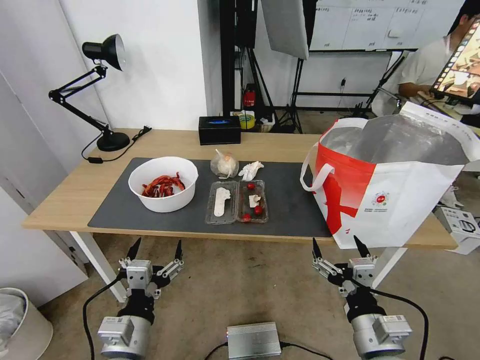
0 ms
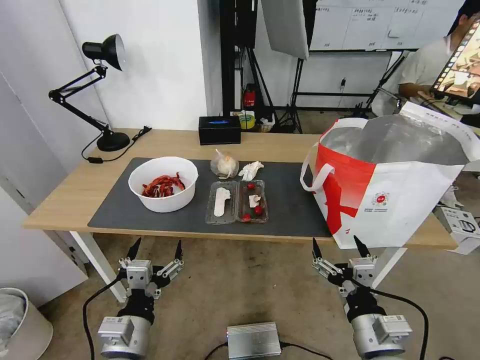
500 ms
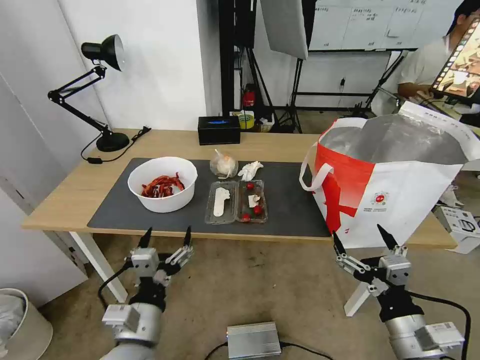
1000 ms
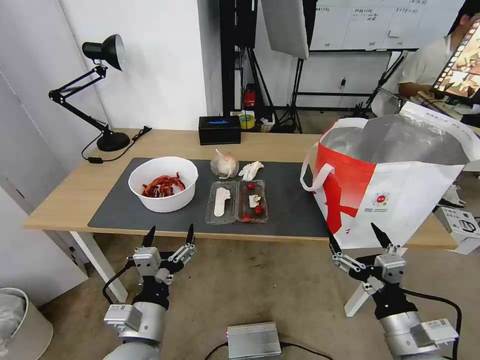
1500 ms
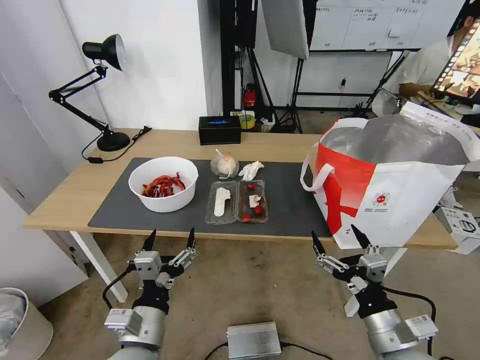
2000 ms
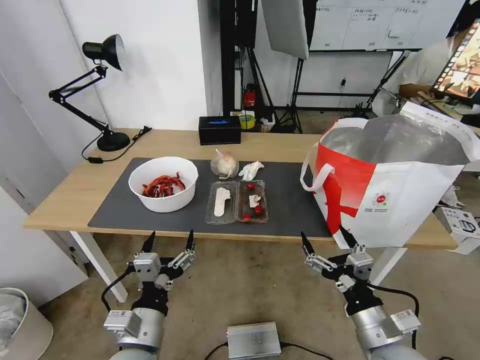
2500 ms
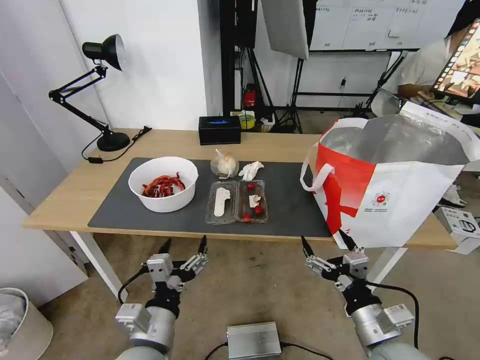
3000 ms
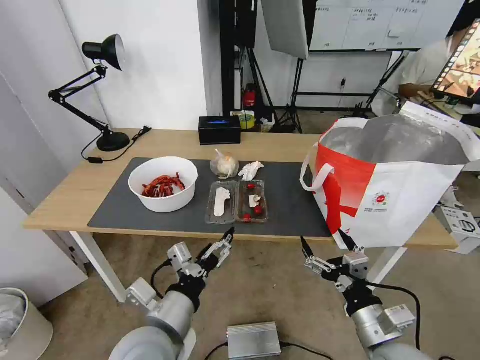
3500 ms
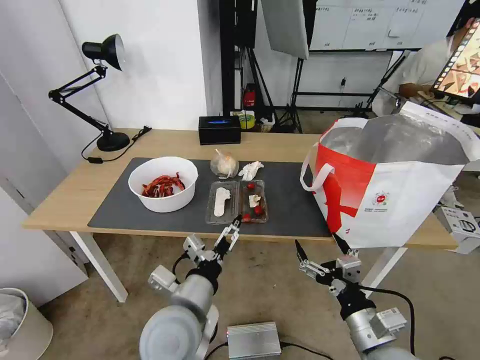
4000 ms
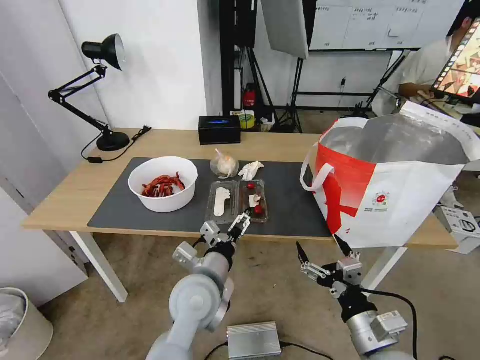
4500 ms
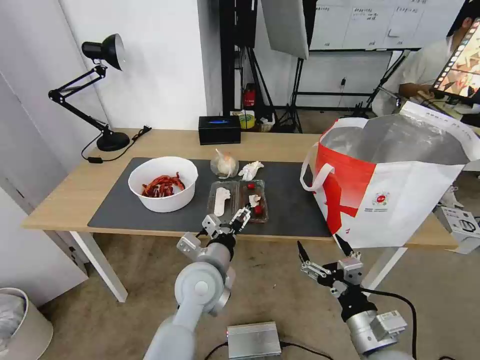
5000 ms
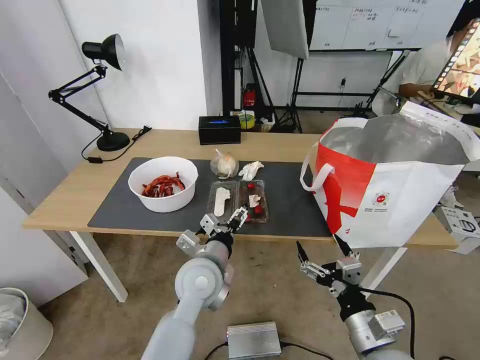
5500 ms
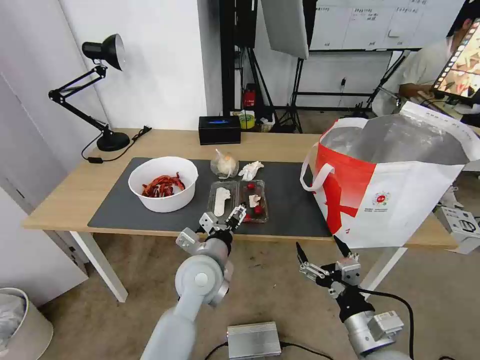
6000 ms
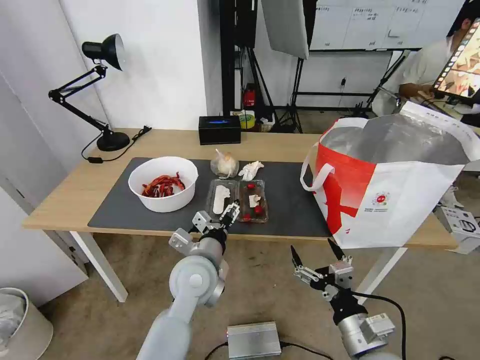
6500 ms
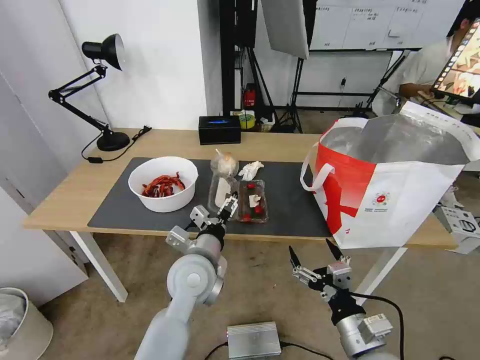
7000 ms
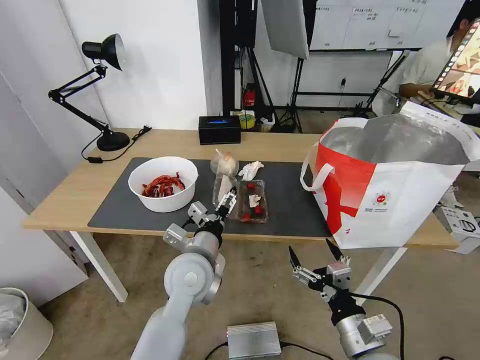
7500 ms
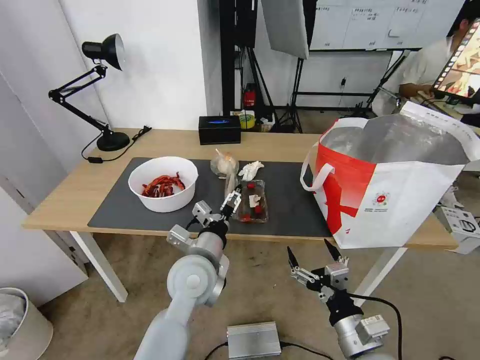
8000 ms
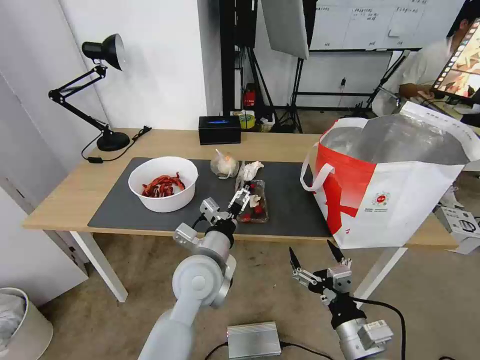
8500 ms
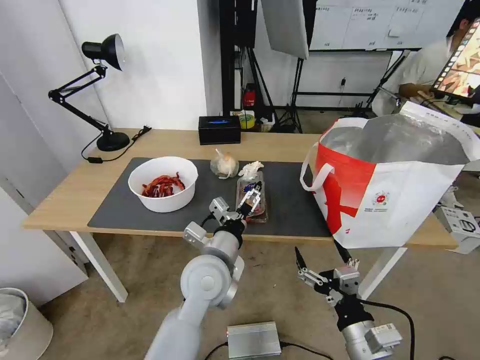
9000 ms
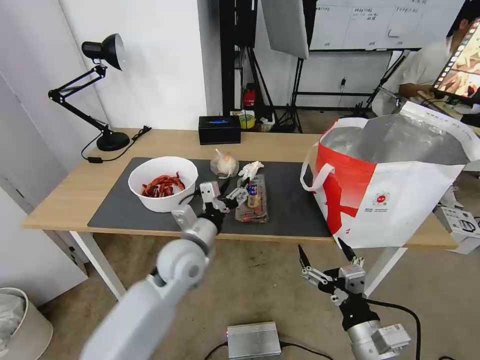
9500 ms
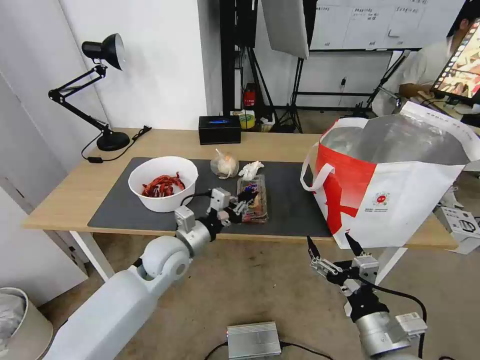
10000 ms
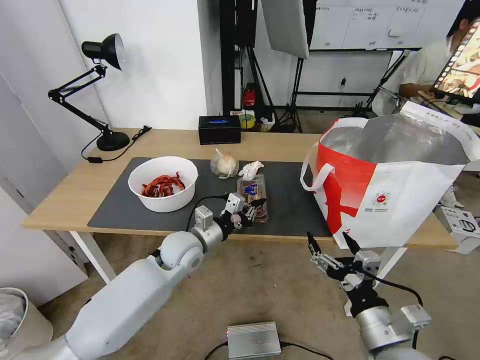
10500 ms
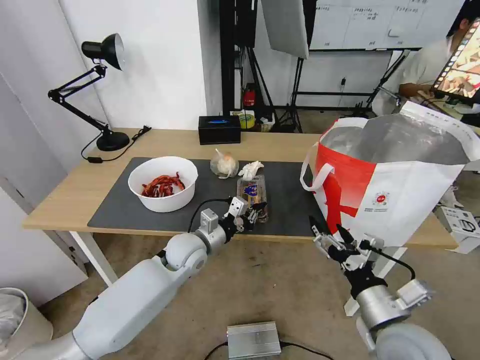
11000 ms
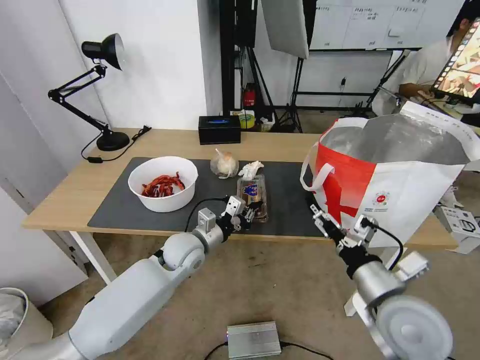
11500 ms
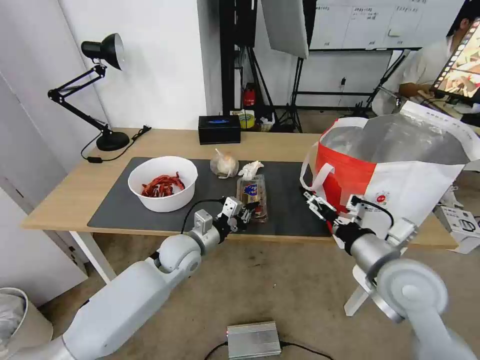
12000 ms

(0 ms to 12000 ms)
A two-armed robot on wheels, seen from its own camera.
Task of the whole recording: Pick up the trash from the table and place it into the takeout bag.
2000 ms - 4000 ms: The left gripper travels to the right by some 5 cm.
4000 ms - 6000 ms: The left gripper is displaced forward by about 10 cm.
6000 ms - 8000 ms: The grippers make only small movements.
8000 ms - 10000 ms: The left gripper is displaced to the left and forward by approximately 10 cm, and closes its fingers.
10000 ms - 12000 ms: The right gripper goes approximately 15 cm forward and upward. The left gripper moves about 5 cm.

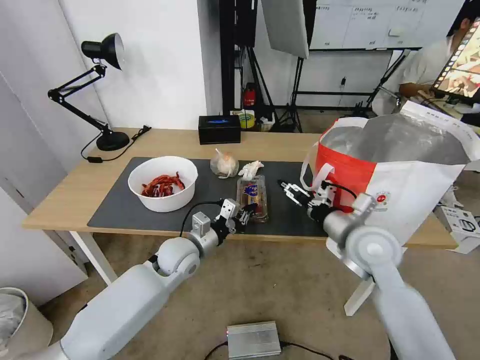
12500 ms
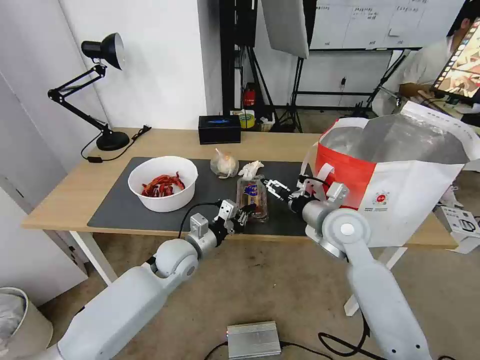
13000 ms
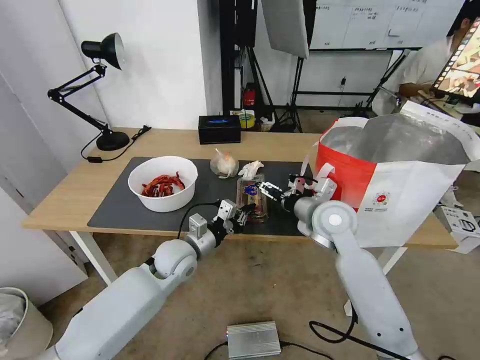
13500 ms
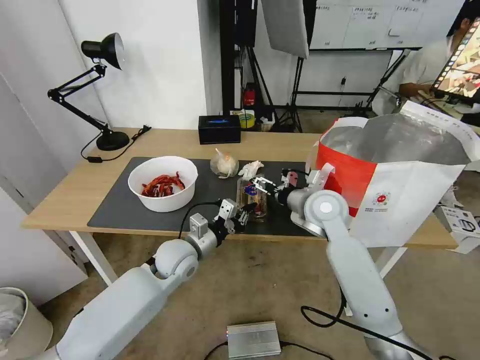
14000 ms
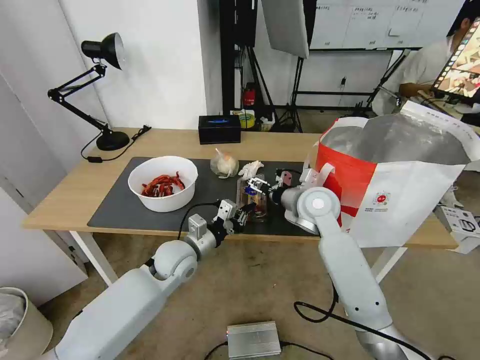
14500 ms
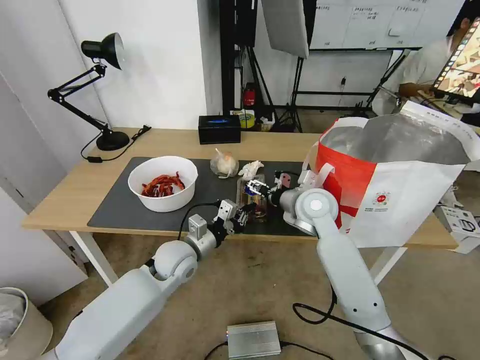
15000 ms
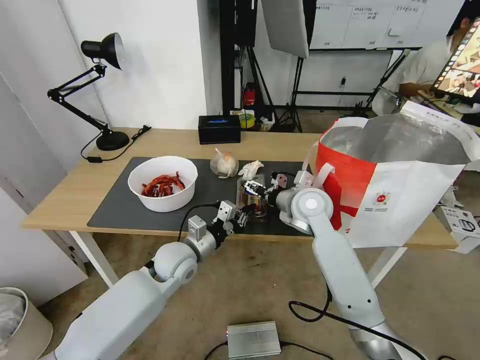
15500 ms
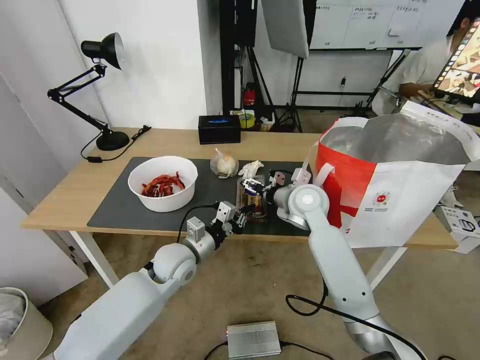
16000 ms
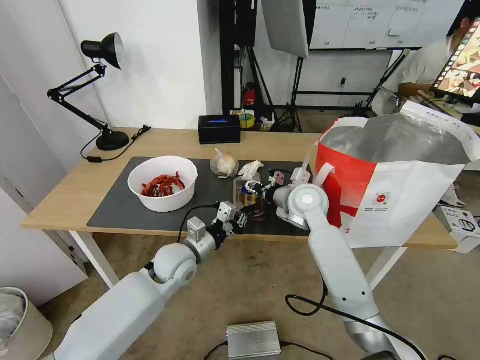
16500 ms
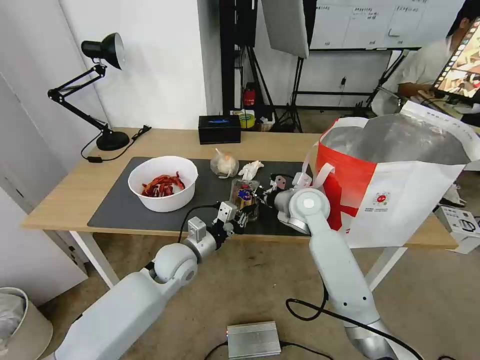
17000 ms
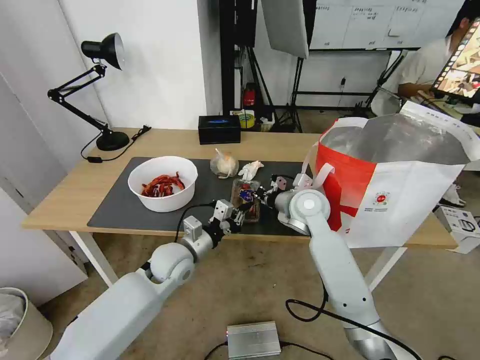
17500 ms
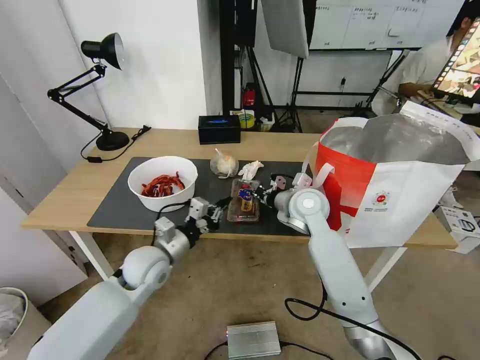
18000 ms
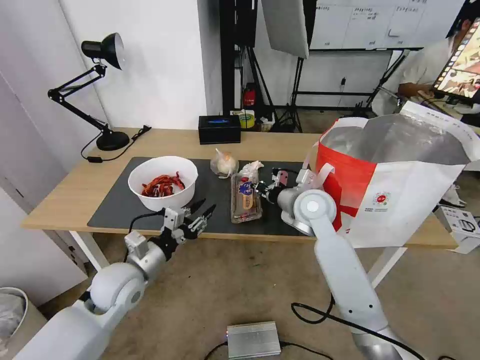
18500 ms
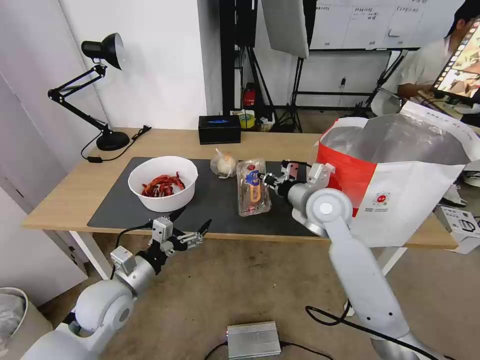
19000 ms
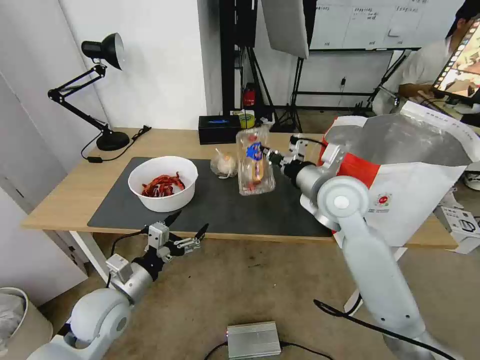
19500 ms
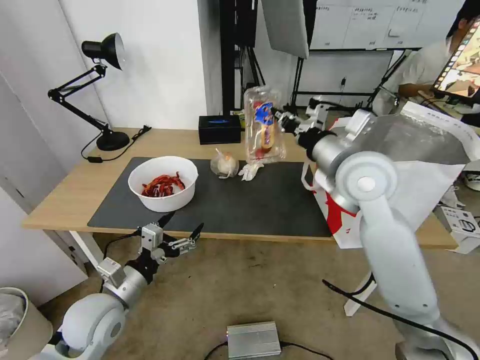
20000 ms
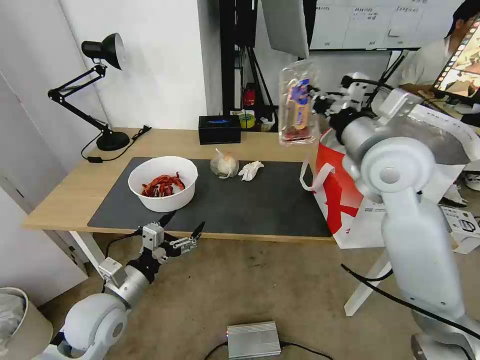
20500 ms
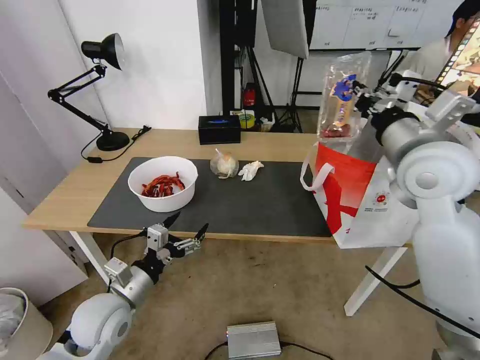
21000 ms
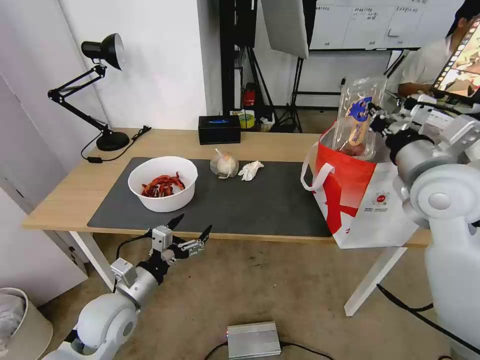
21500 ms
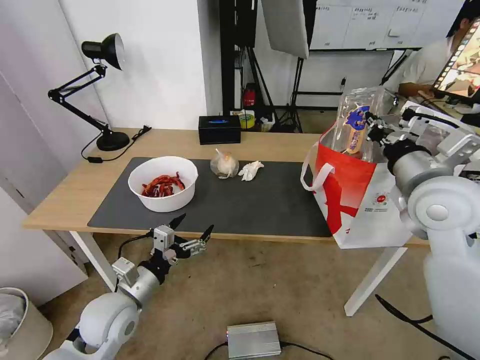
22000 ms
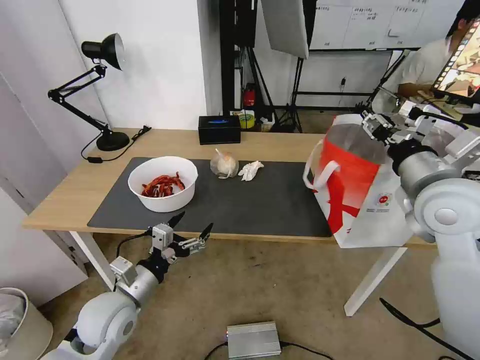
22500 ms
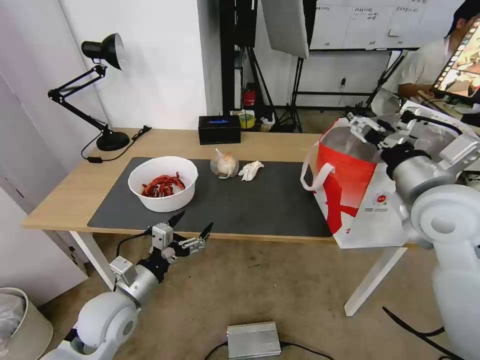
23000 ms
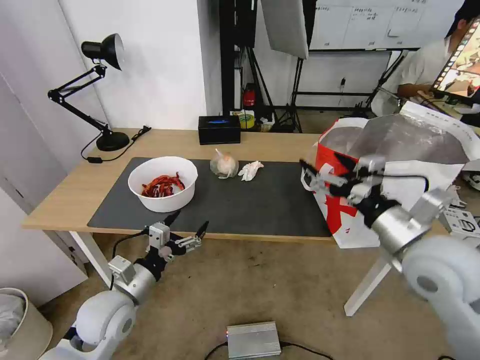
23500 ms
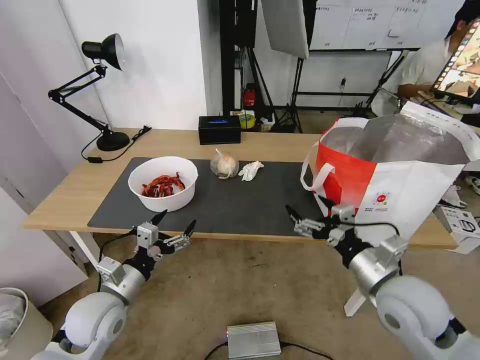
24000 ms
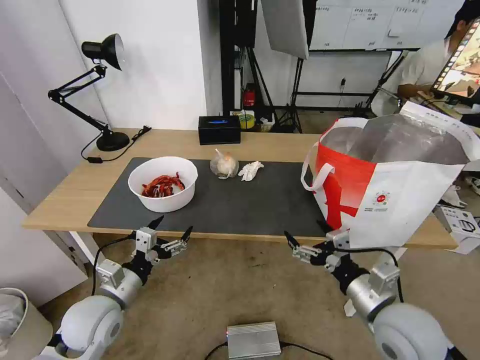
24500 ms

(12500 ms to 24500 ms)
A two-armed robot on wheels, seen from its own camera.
Task of the whole recording: Pick up the trash from the table and place it into the takeout bag.
12500 ms - 14500 ms: The right gripper goes approximately 15 cm forward and to the left.
14500 ms - 16500 ms: The right gripper closes up.
16500 ms - 18500 ms: The left gripper is displaced to the left and backward by some 10 cm; the right gripper closes.
18500 ms - 20500 ms: The right gripper moves upward and to the right, some 20 cm; the left gripper is displaced backward by roughly 5 cm, and opens up.
20500 ms - 22500 ms: The right gripper heads to the right and backward, covering roughly 10 cm, and opens its fingers.
22500 ms - 24500 ms: The right gripper is displaced downward and backward by approximately 20 cm, and opens.

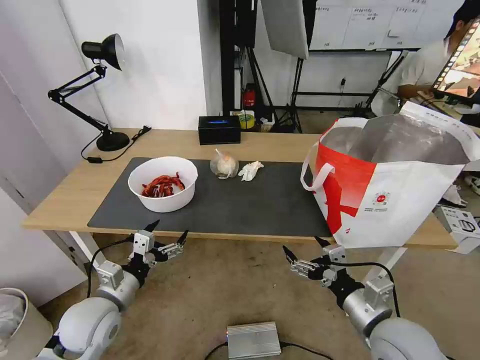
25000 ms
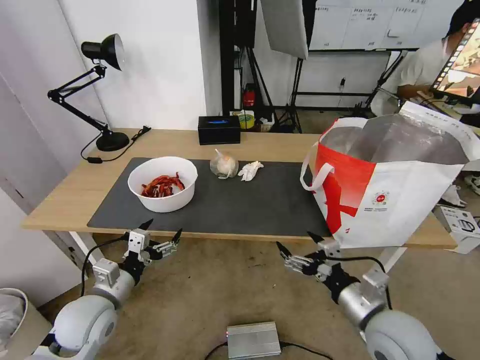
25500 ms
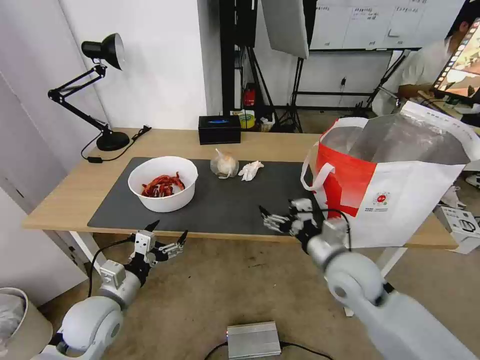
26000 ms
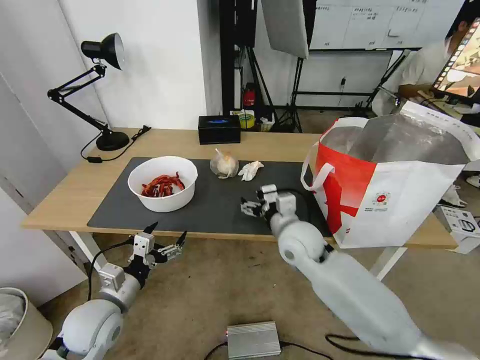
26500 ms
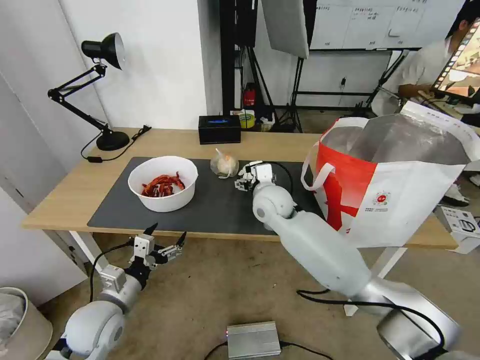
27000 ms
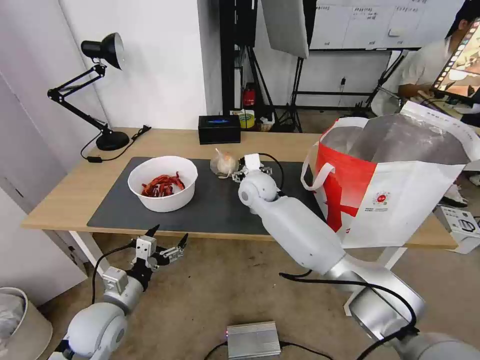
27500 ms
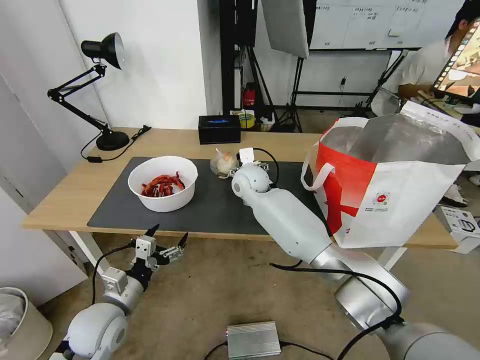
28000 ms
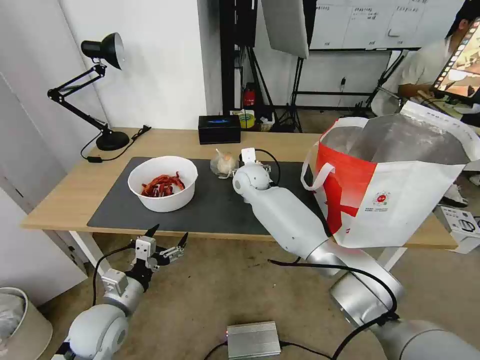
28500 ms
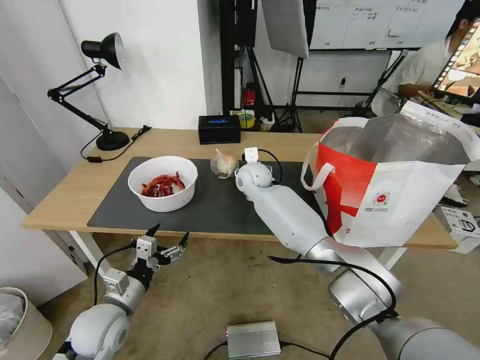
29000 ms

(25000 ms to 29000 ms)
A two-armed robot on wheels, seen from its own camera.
Task of the whole recording: Pick up the trash from the table and place it into the takeout bag.
25000 ms - 27000 ms: The right gripper heads forward and to the left, covering some 35 cm.
27000 ms - 29000 ms: The right gripper goes about 10 cm forward.
